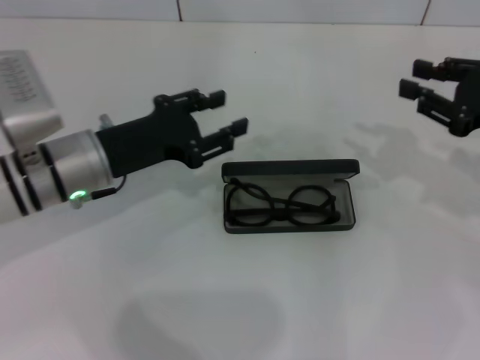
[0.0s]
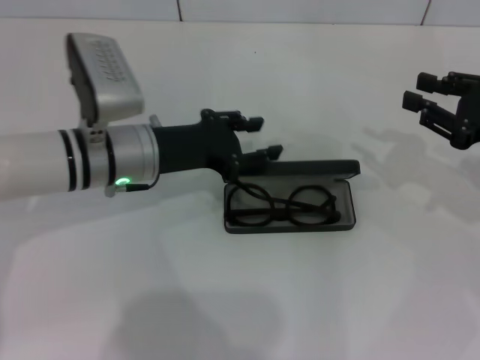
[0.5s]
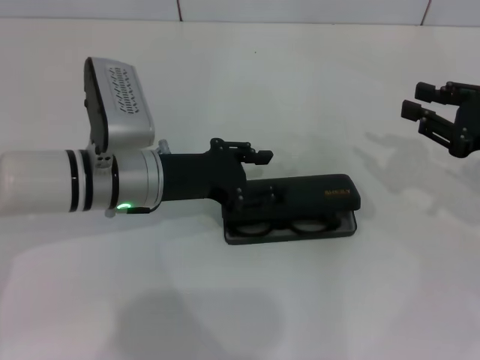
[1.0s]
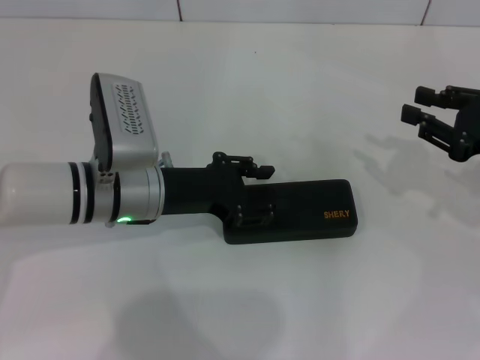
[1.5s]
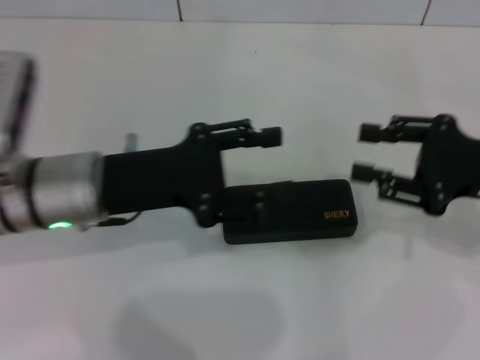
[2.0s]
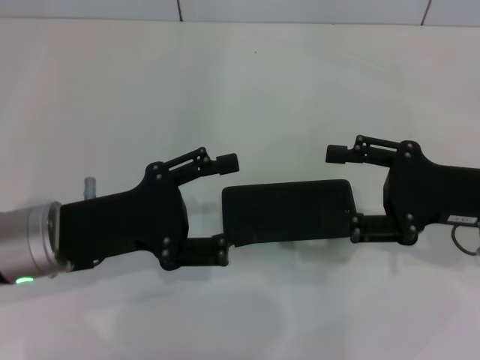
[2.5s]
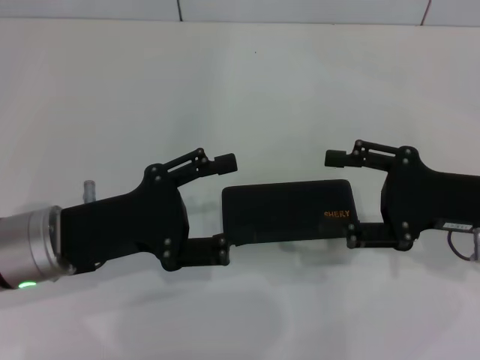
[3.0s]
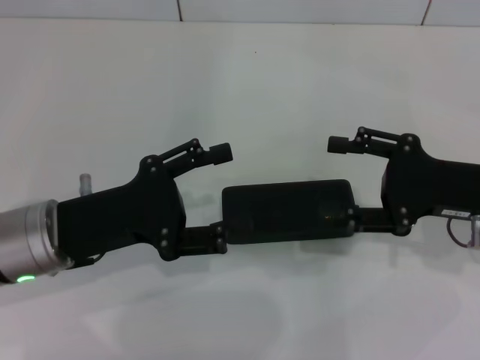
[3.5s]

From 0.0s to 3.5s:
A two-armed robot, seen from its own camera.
Step, from 0.5s to 1.5s: Close the glasses case with your left hand.
From 2.0s to 3.5s: The right gripper opens, while the left gripper changes place by some 5 cm, and opens.

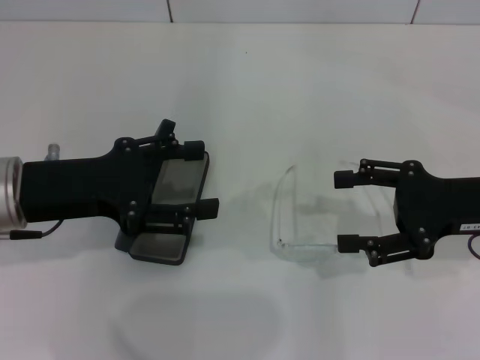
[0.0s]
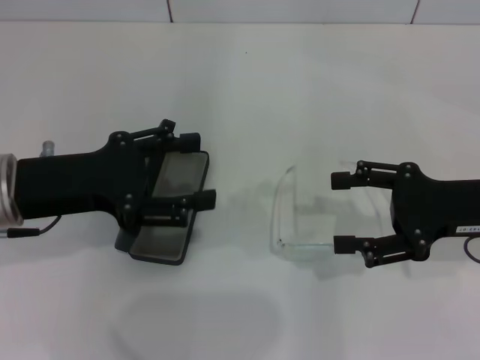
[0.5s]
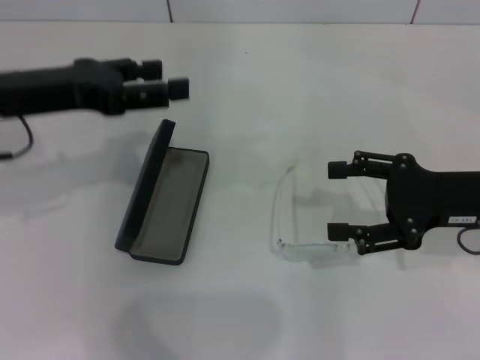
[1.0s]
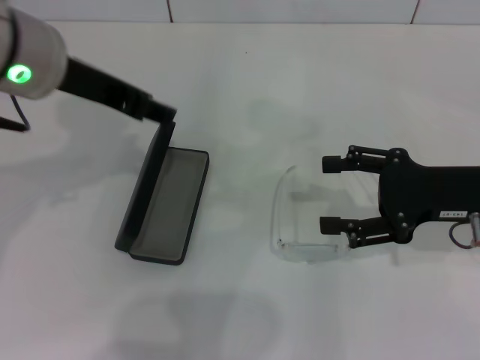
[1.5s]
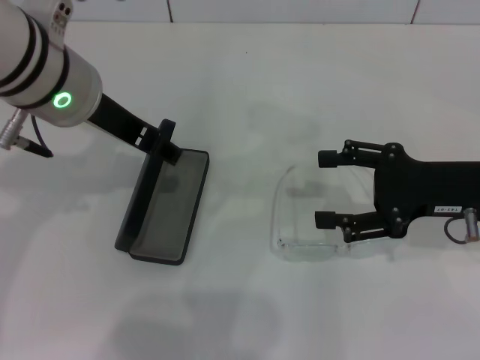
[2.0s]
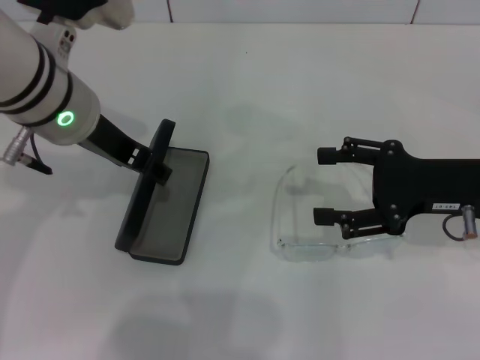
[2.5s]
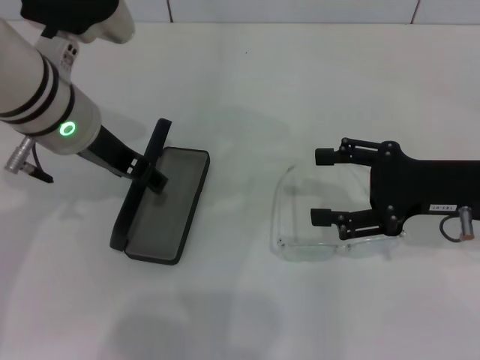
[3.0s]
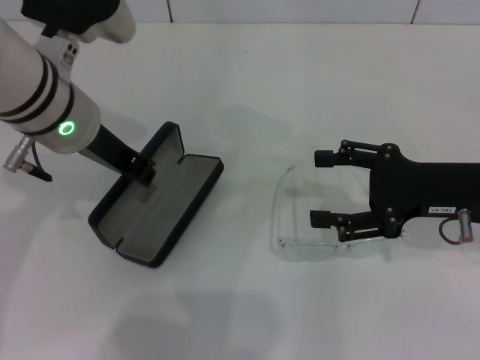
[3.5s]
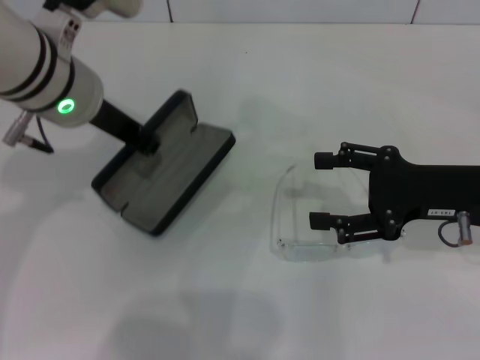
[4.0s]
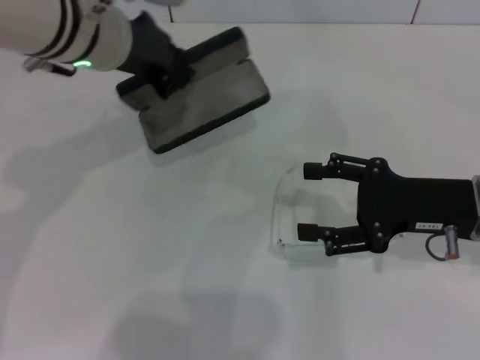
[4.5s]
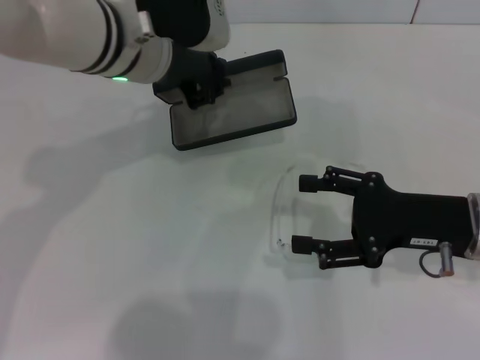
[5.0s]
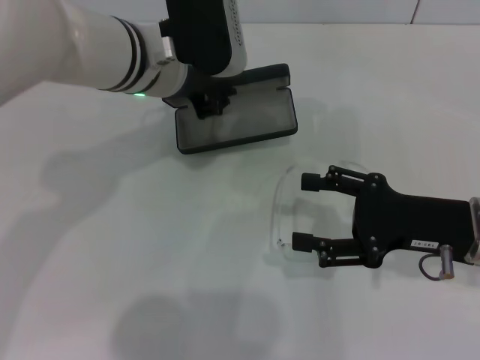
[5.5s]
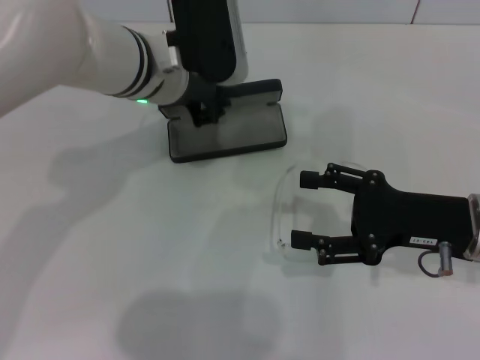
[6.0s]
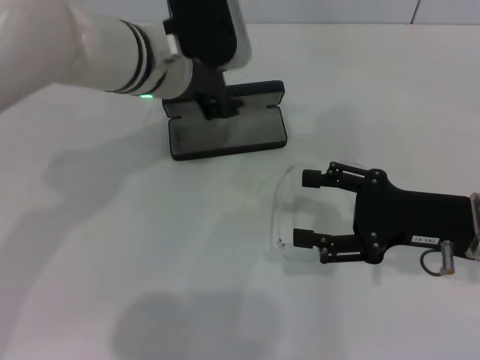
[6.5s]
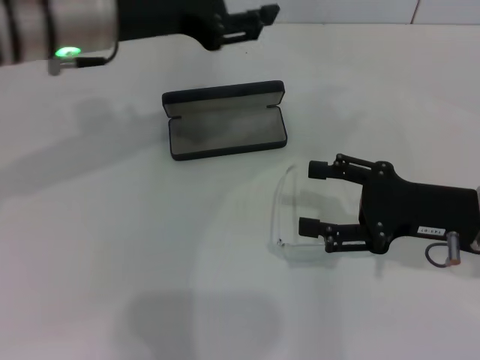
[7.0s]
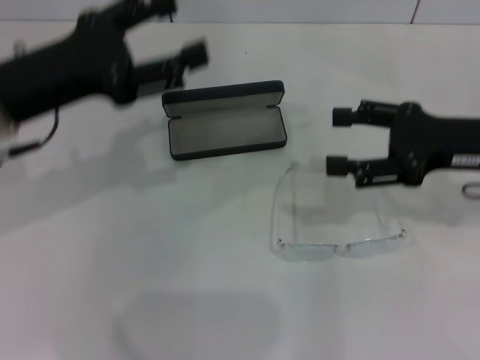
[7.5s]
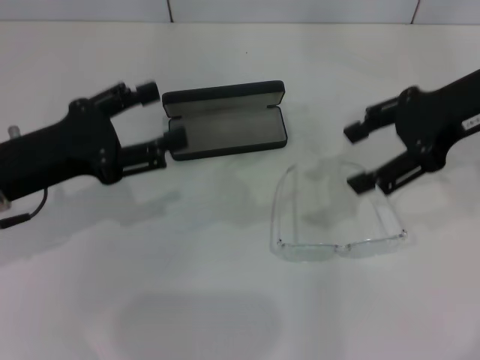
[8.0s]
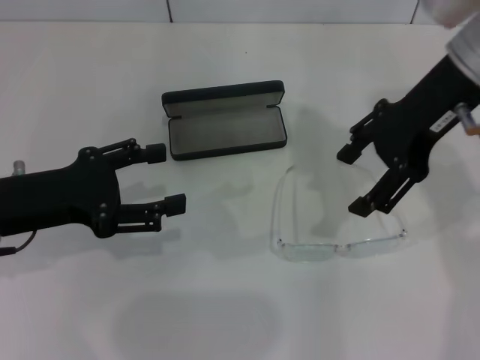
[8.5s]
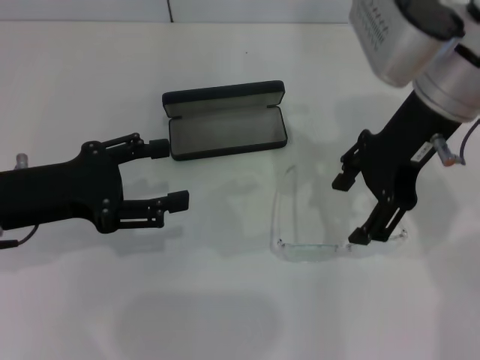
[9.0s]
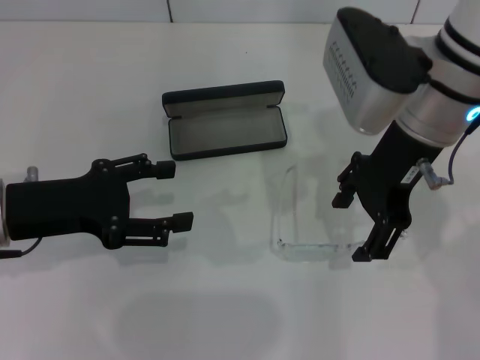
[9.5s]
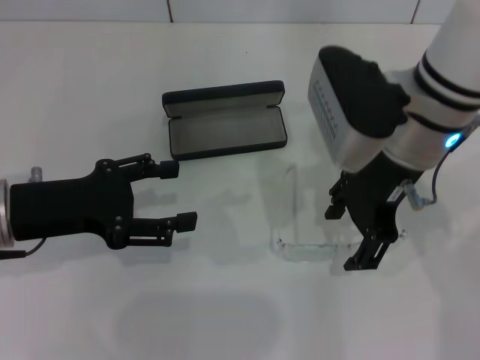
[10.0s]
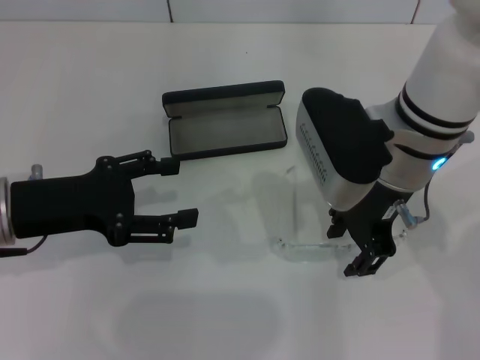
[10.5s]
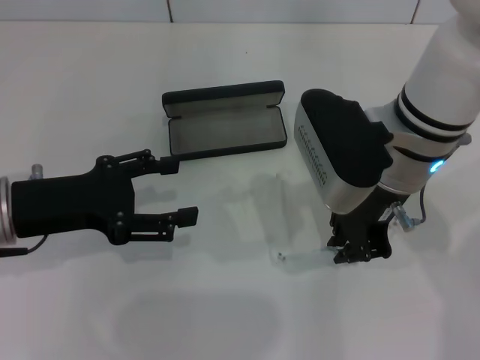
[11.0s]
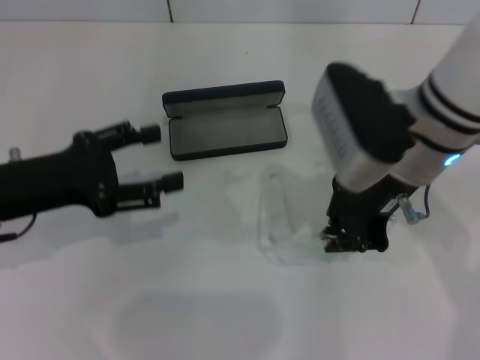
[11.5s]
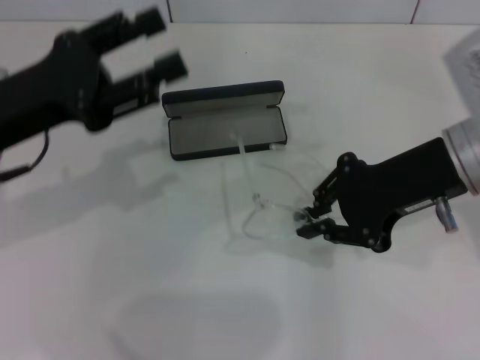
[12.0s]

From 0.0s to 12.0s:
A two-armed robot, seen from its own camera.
Step, from 0.0s to 3.0s: Grab the glasses case with your left hand.
Step, from 3.5s to 6.0s: Place the glasses case in the center of the table with your left hand.
Step, from 6.5s to 11.0s: Grab the eyeglass frame with your right hand.
From 0.0s to 2.0s: The left gripper goes about 15 cm to the right, upward and forward.
From 2.0s to 4.0s: The left gripper closes up.
From 4.0s to 6.0s: The left gripper travels to the right by roughly 5 cm.
From 6.0s to 8.0s: The left gripper travels to the left and backward by roughly 20 cm, and opens; the right gripper shifts roughly 15 cm upward and forward.
From 8.0s to 10.0s: The right gripper moves to the left, some 10 cm.
From 10.0s to 12.0s: The left gripper moves upward, roughly 5 cm. The right gripper travels to the right by approximately 5 cm, and closes.

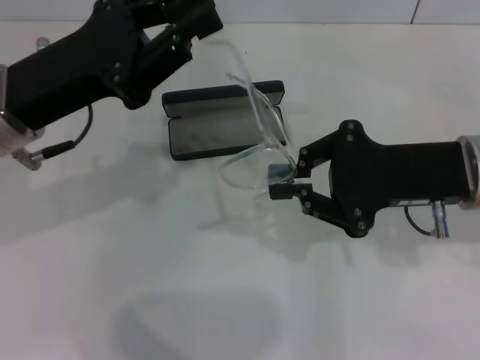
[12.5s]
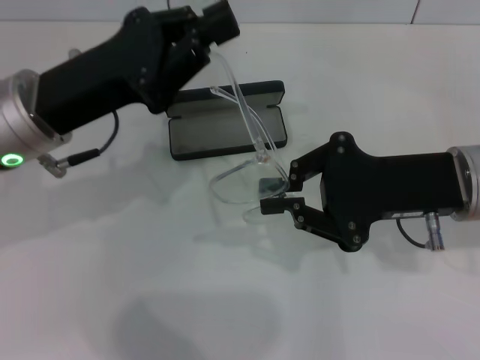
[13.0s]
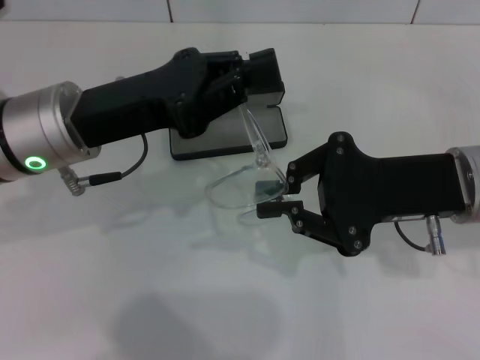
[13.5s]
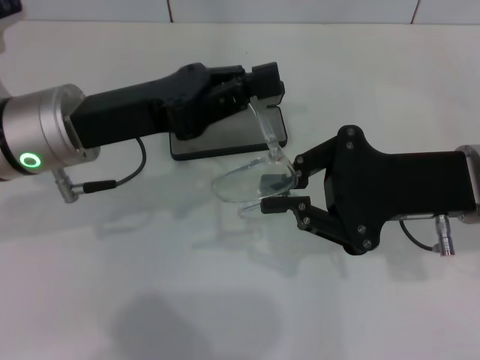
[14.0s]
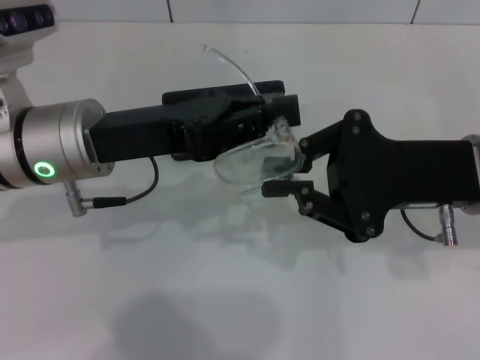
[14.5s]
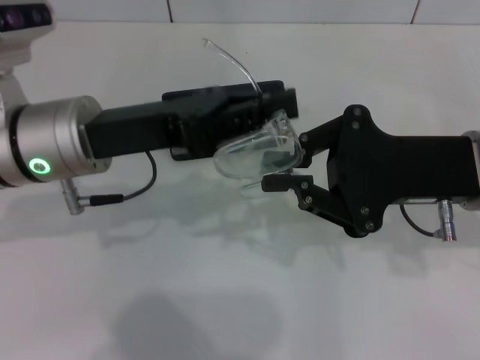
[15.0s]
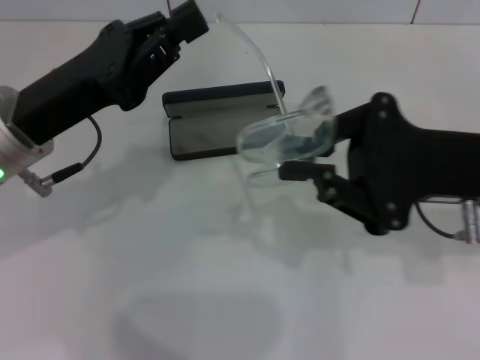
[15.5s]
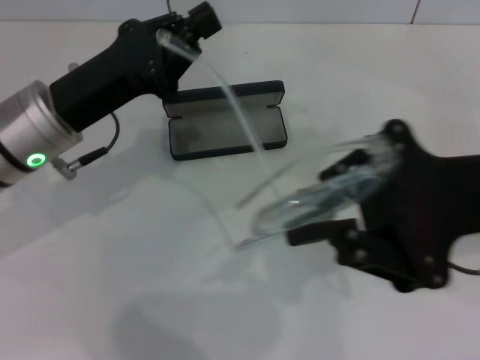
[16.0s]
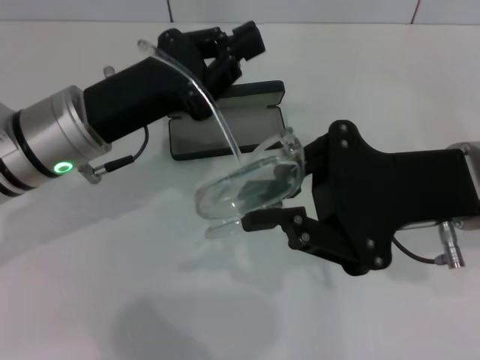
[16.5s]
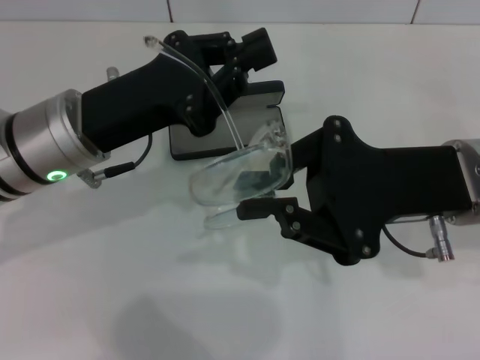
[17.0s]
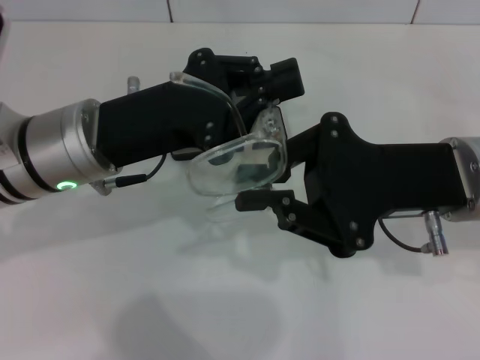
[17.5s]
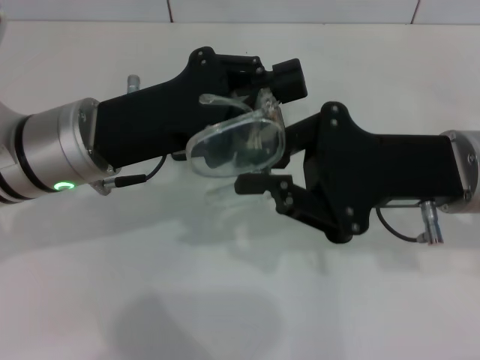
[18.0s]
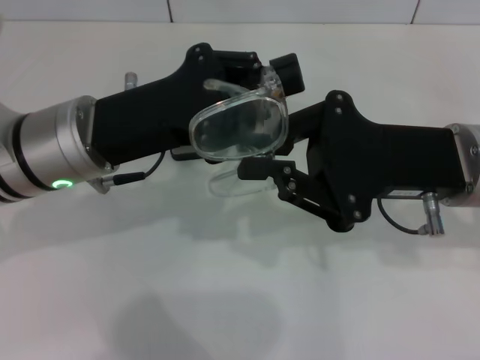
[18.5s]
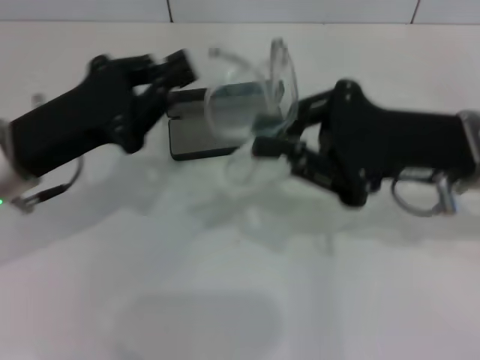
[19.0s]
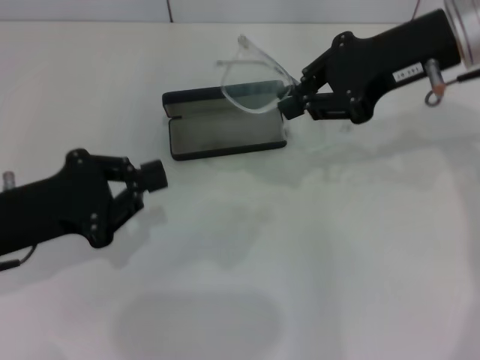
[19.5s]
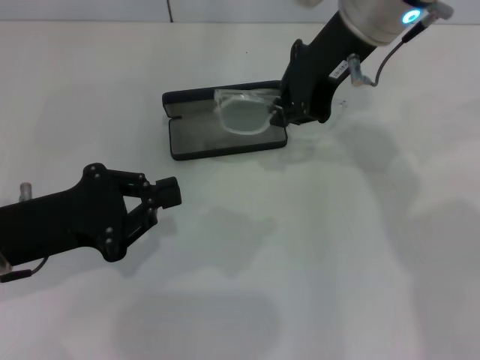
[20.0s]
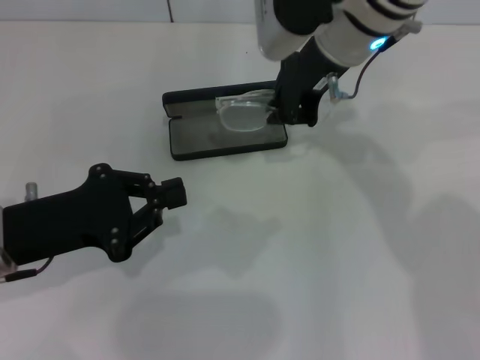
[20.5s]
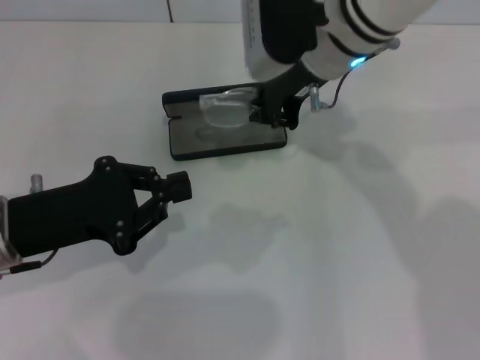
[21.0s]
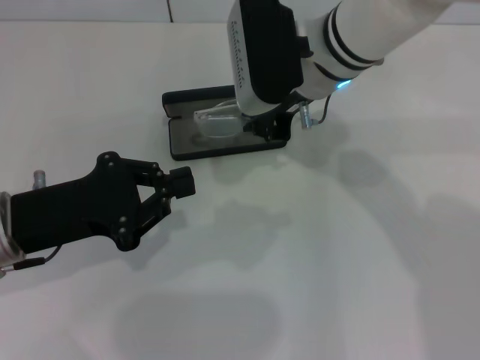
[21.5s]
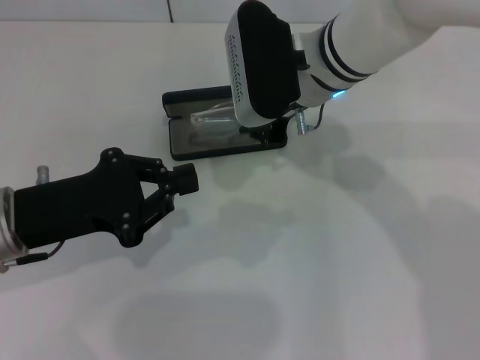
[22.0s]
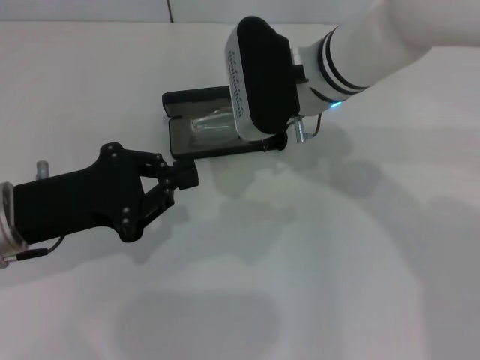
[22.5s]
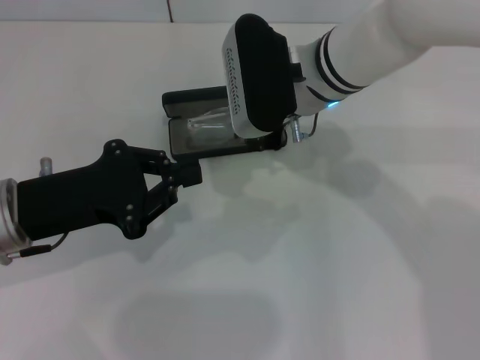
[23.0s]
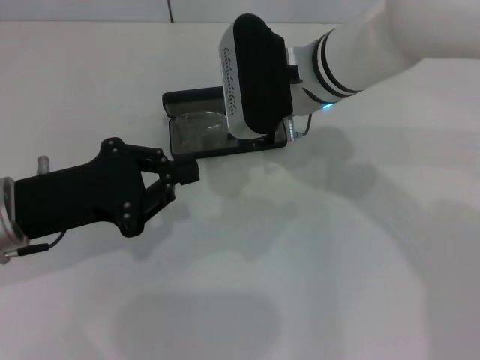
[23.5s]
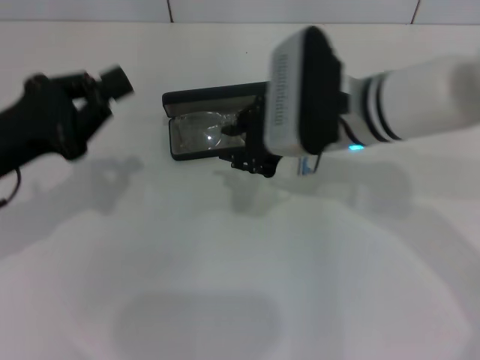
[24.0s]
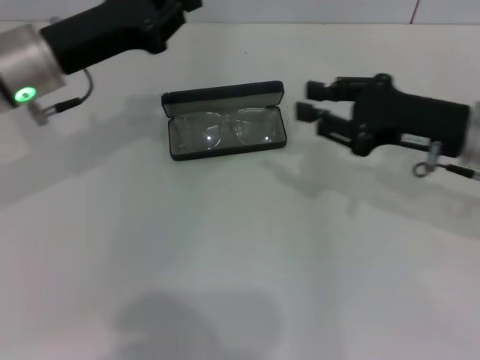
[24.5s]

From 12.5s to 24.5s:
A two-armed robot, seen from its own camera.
Step, from 12.5s to 18.0s: Fold the frame with your left hand.
Step, from 18.5s to 23.5s: Put the glasses into the case with your right hand.
From 12.5s to 14.5s: The left gripper closes.
From 18.5s to 20.5s: The left gripper shifts roughly 10 cm to the left, backward and downward; the right gripper moves forward, to the left and upward, approximately 15 cm.
From 20.5s to 22.5s: The right gripper moves downward, roughly 5 cm.
From 22.5s to 24.5s: The left gripper heads forward, covering approximately 10 cm; the right gripper shifts about 20 cm to the right and backward.
